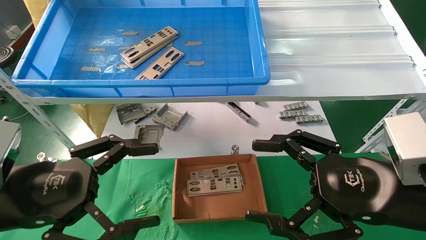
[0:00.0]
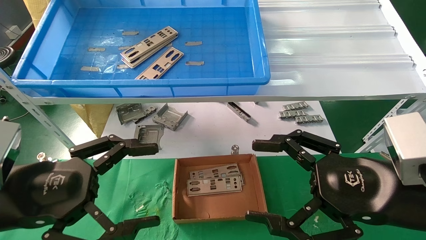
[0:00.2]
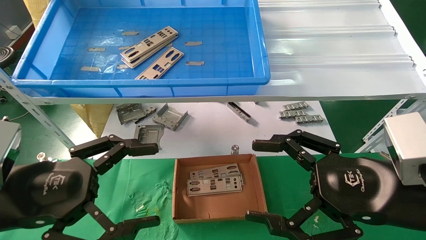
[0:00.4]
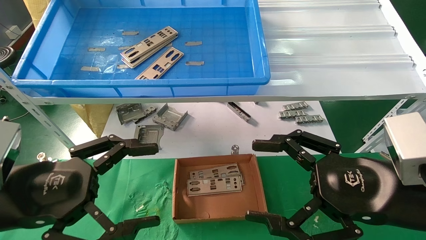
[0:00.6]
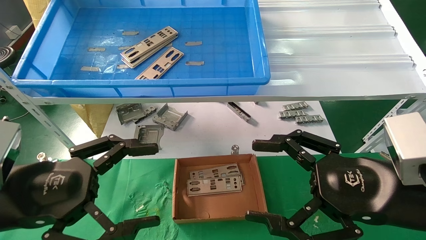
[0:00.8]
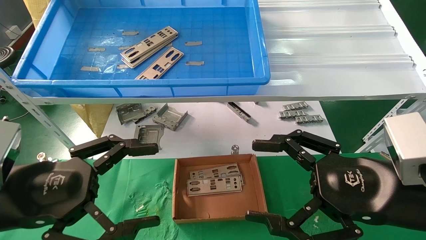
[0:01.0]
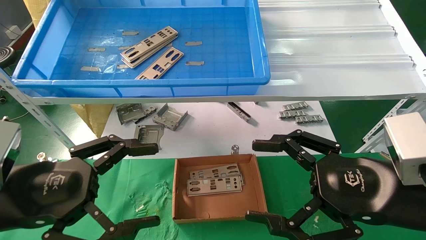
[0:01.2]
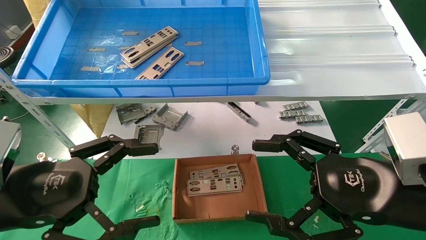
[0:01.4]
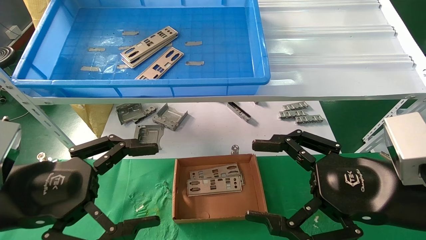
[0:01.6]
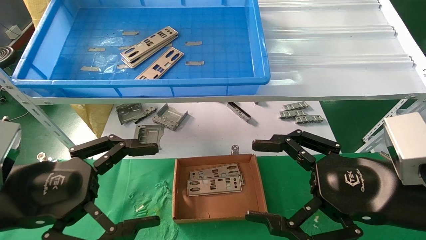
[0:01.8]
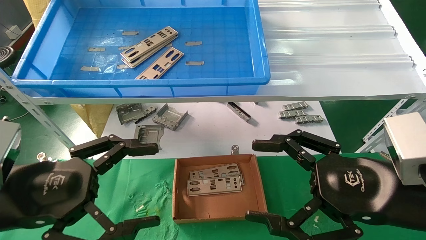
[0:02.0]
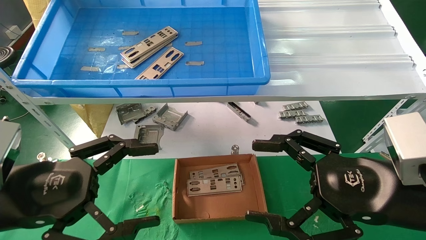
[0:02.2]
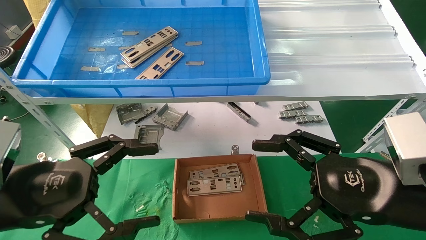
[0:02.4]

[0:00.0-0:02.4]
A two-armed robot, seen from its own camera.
Task of the whole recording: pick up the parts on the tray and put them in the cardboard box.
0:00.0 to 0:02.4: Both grippers stay put.
